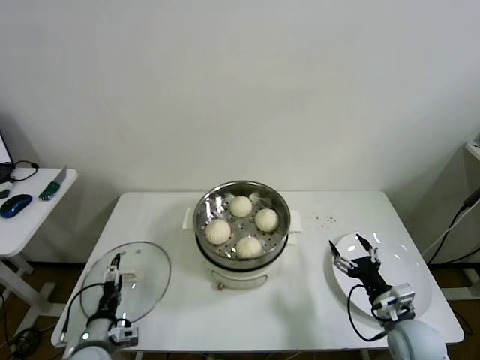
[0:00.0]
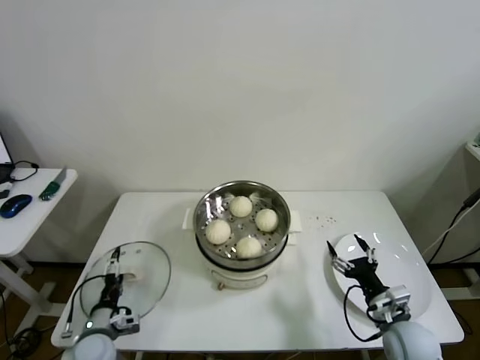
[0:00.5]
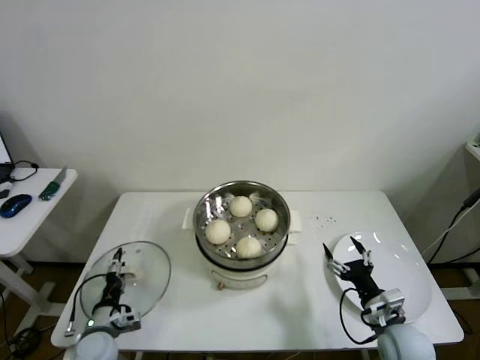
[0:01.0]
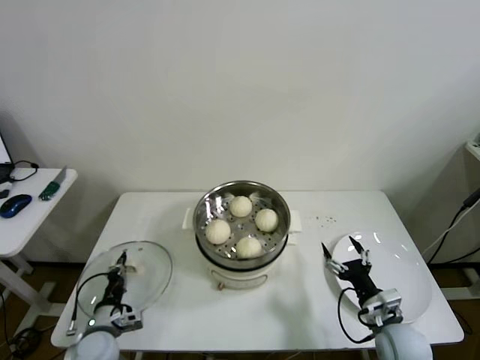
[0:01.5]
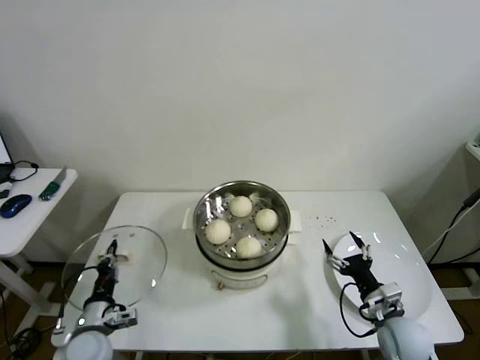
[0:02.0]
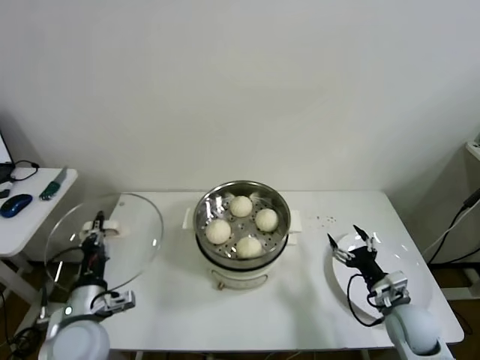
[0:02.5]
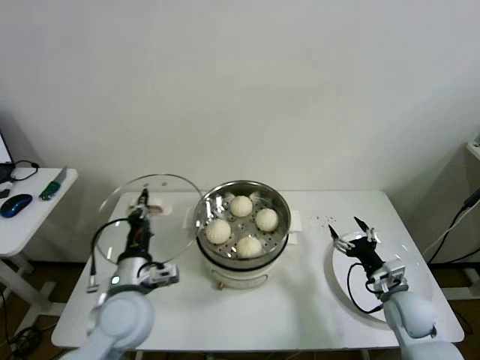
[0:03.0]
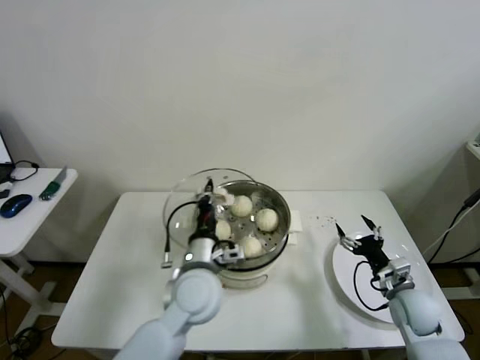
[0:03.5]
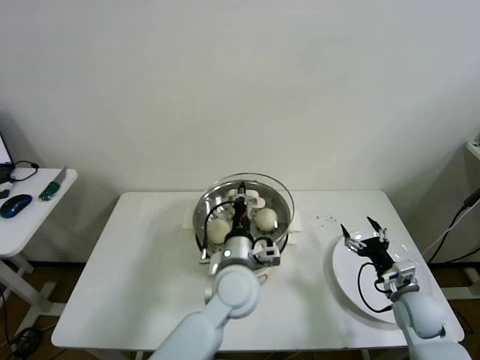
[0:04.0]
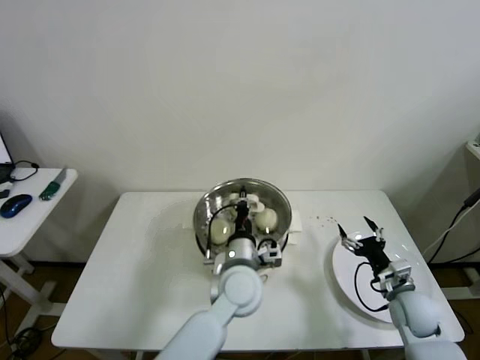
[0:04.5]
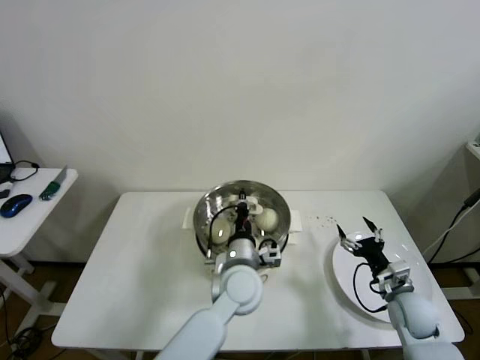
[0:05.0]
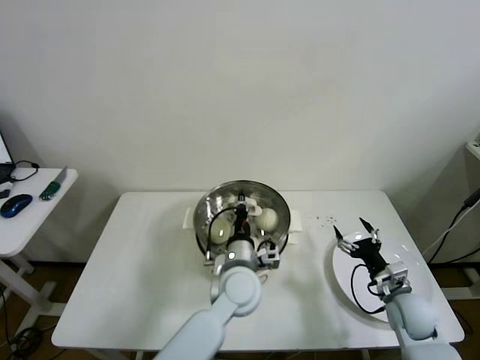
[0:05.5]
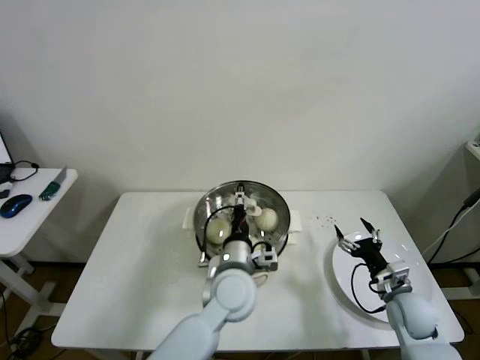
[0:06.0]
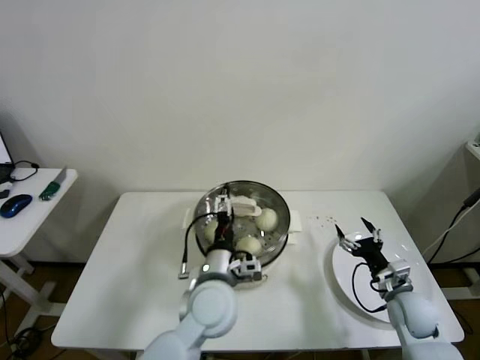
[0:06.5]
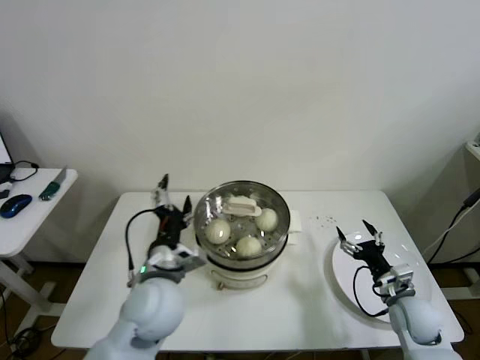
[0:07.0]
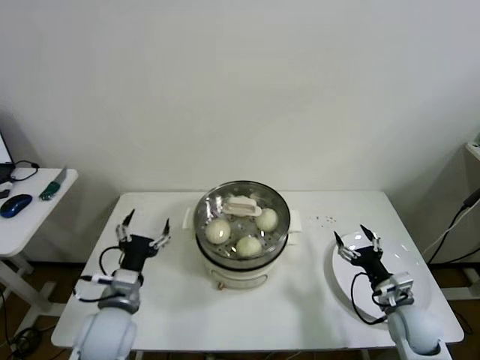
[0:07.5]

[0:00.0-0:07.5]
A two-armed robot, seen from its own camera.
Step, 2.0 to 6.0 s: Place the pot lid on the steamer with left gripper.
0.0 to 2.0 s: The left gripper closes its fingers.
2.0 to 4.0 s: The right gripper is displaced to the right and forward by about 10 cm. The left gripper travels to the right and upward by about 35 cm.
4.0 to 5.5 s: The grippers stay close to where they were, moving slightly.
5.5 to 7.5 s: The left gripper travels to the left by roughly 25 cm, and opens its fingers.

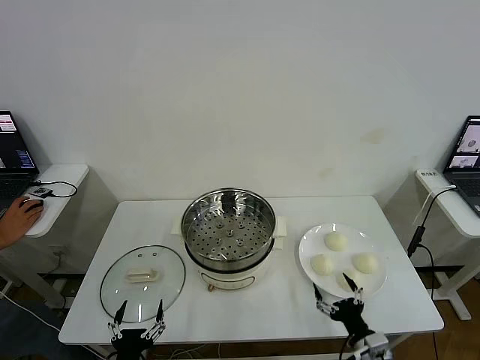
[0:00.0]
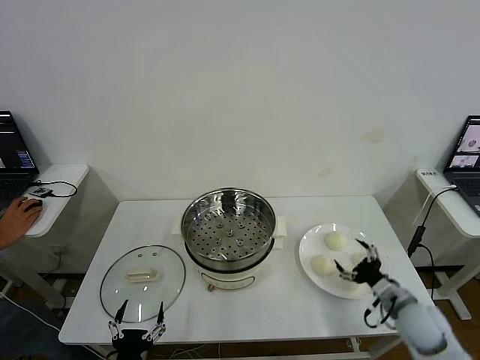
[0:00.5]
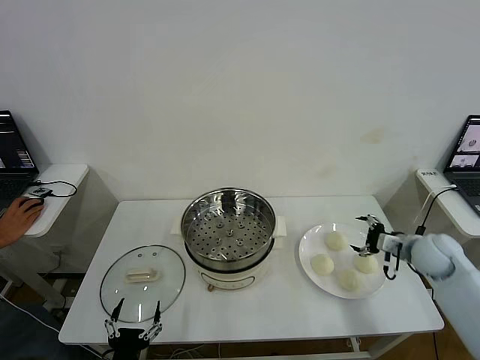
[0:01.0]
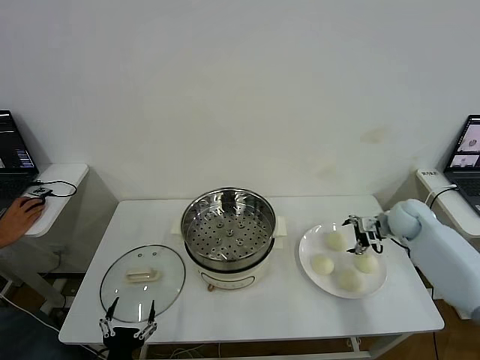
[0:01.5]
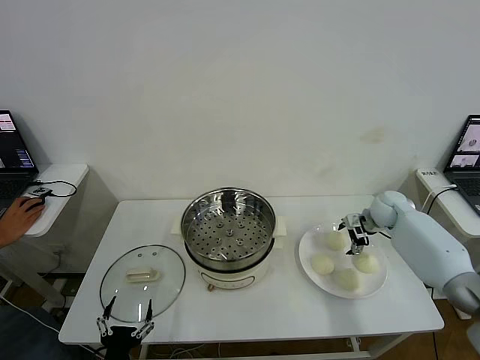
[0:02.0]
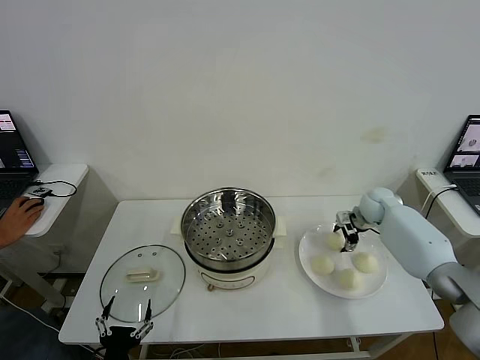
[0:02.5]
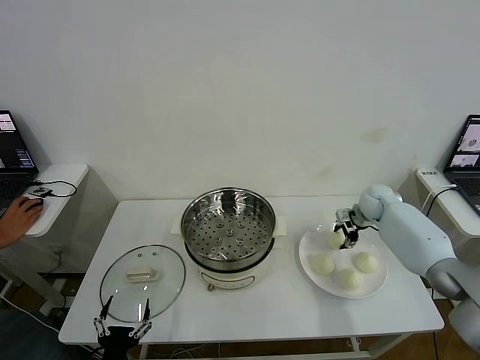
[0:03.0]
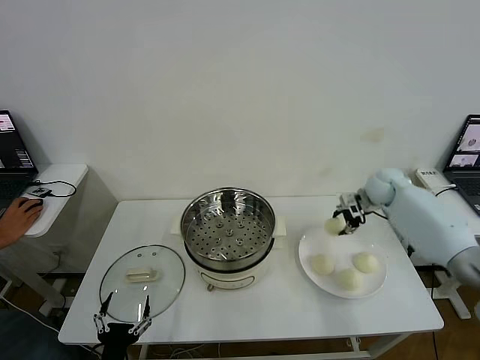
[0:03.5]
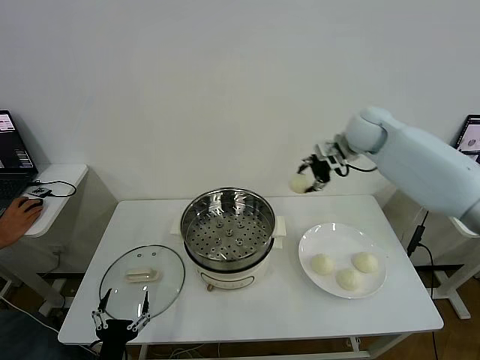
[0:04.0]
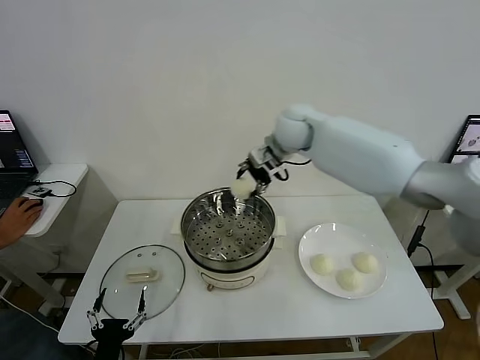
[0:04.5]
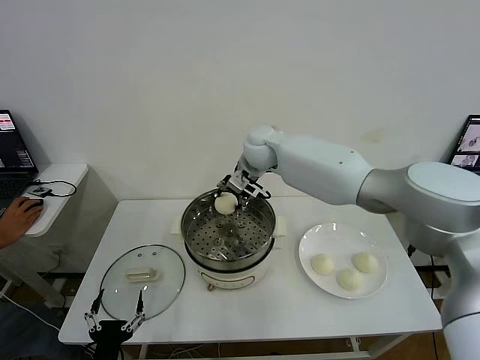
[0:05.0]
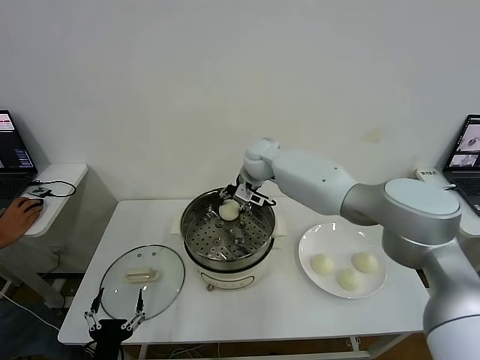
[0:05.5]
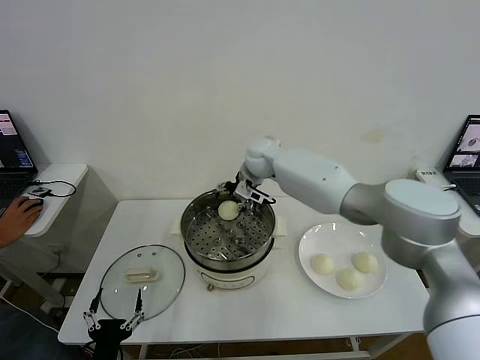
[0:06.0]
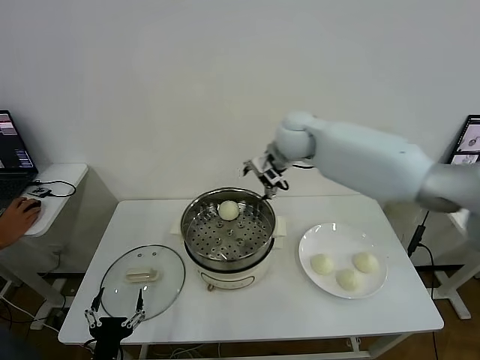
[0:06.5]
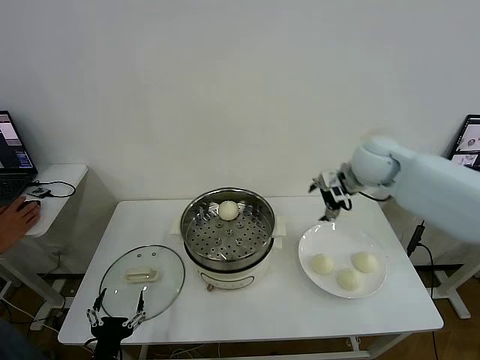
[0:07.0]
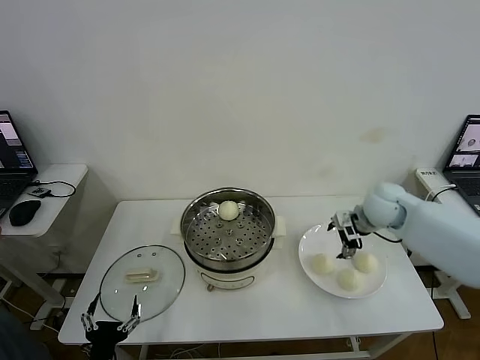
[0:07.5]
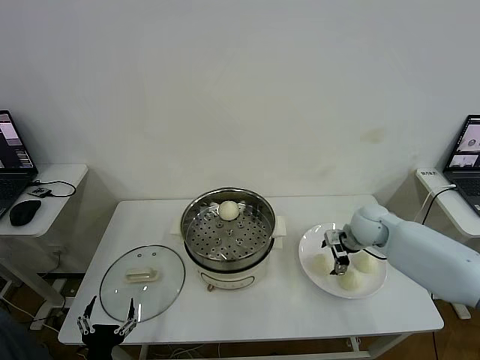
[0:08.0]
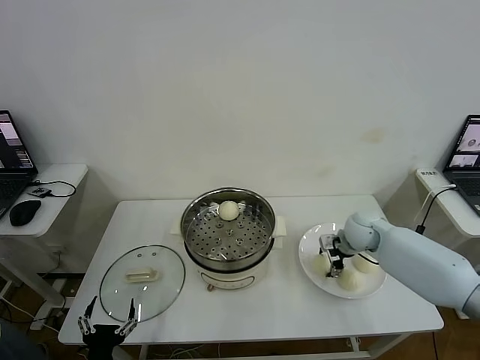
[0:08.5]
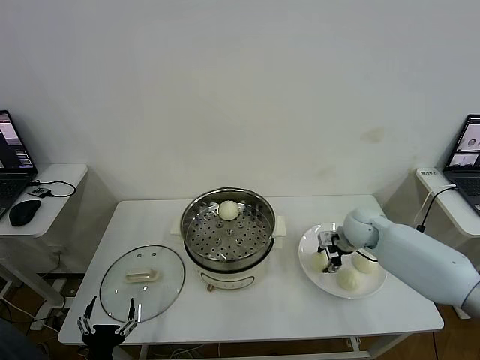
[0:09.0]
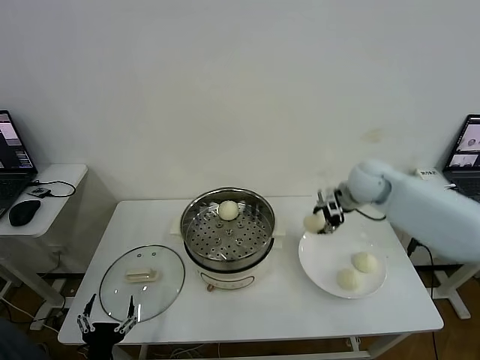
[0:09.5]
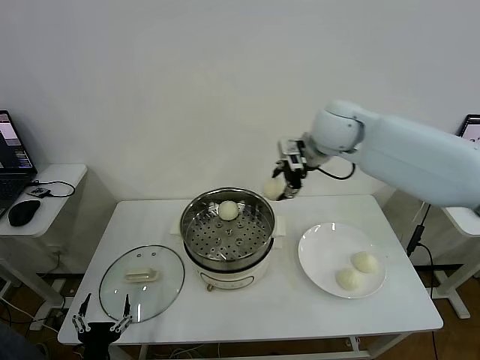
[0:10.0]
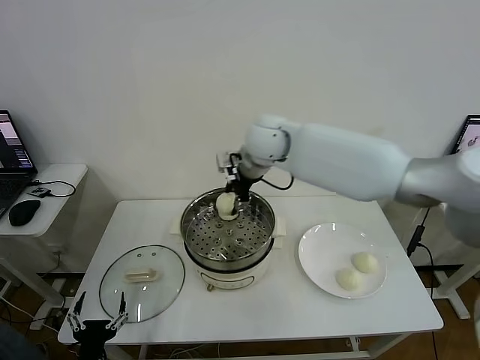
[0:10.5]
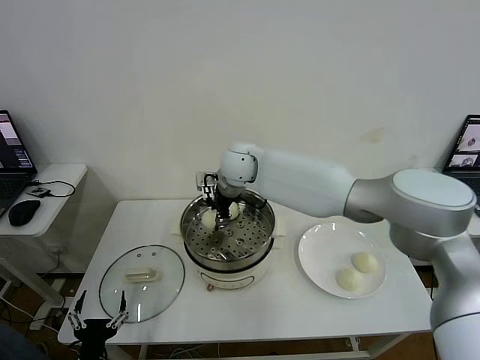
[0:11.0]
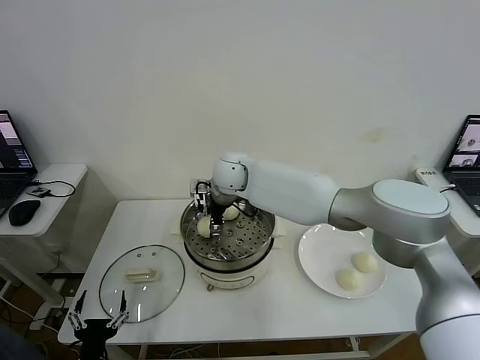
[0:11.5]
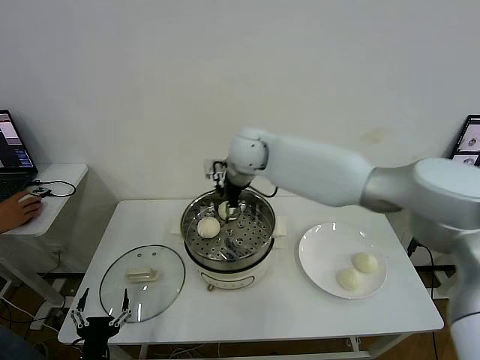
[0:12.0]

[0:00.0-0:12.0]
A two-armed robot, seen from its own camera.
Step, 0.0 to 2.5 s: Grasp the baozi in the plate with right gripper.
Step, 3.0 to 5.5 s: Place the baozi on the steamer with right gripper.
Step, 6.0 to 8.5 s: Grasp the baozi in the plate with right gripper.
Step, 9.0 to 11.5 s: Place the baozi on the steamer with right gripper.
2.0 to 4.0 s: The right gripper travels upward and to the left by approximately 30 cm, and closes.
4.0 to 6.0 s: The right gripper is displaced to the left and downward by about 20 cm, and opens its fingers.
6.0 to 8.0 s: The right gripper heads to the right, downward and backward, covering approximately 30 cm.
8.0 to 10.0 s: The right gripper shifts about 30 cm upward and to the left, and closes up.
10.0 to 12.0 s: The right gripper goes roughly 15 cm to the left and downward, and opens its fingers.

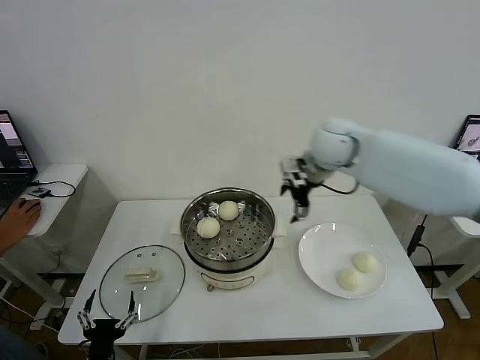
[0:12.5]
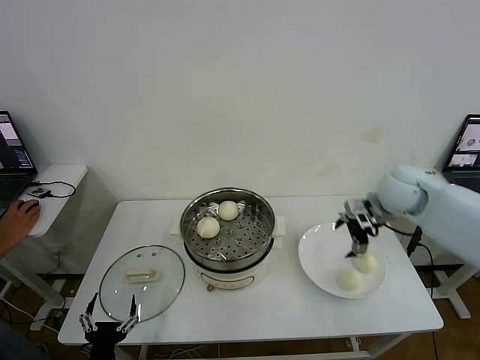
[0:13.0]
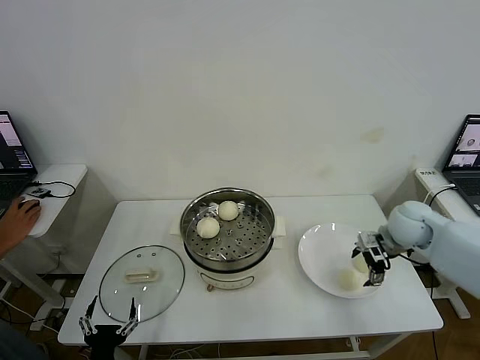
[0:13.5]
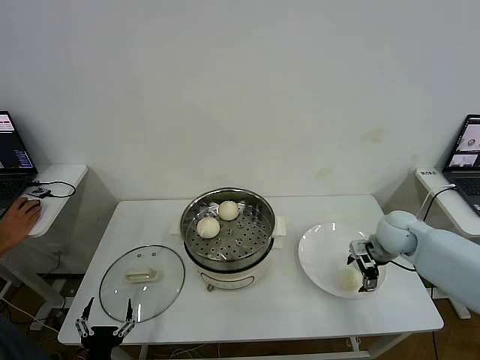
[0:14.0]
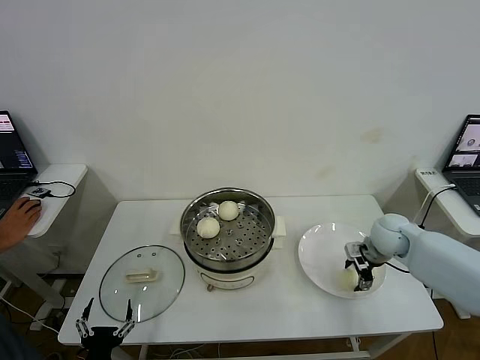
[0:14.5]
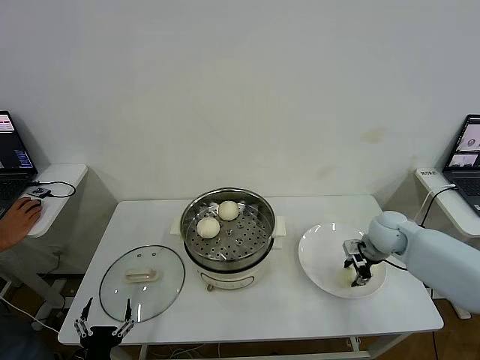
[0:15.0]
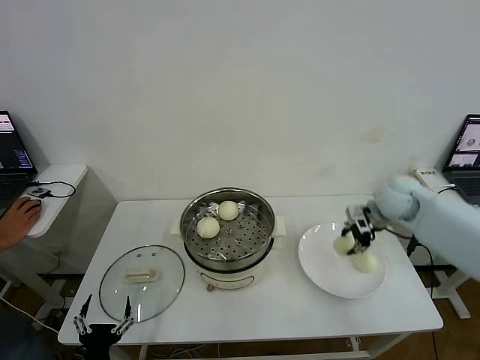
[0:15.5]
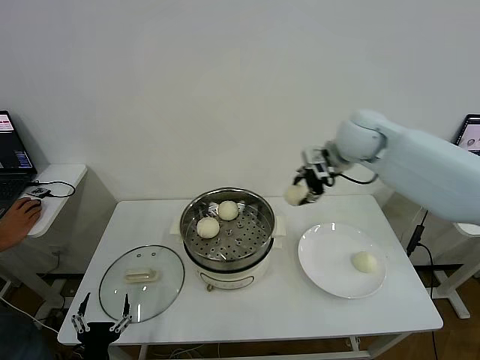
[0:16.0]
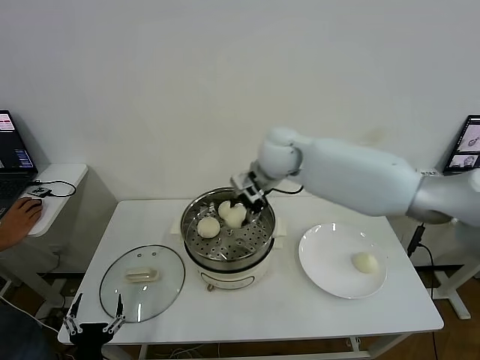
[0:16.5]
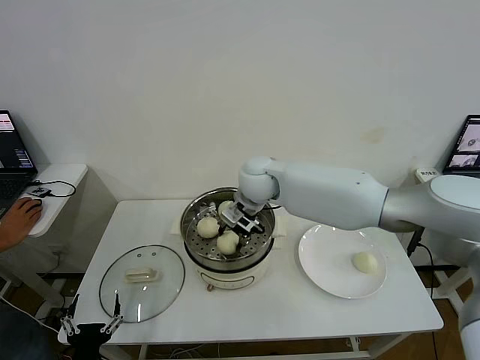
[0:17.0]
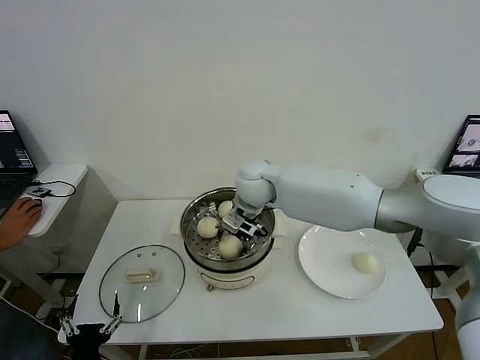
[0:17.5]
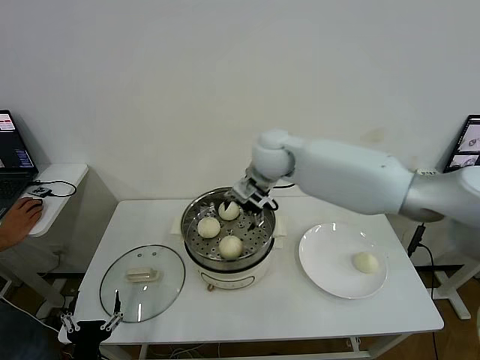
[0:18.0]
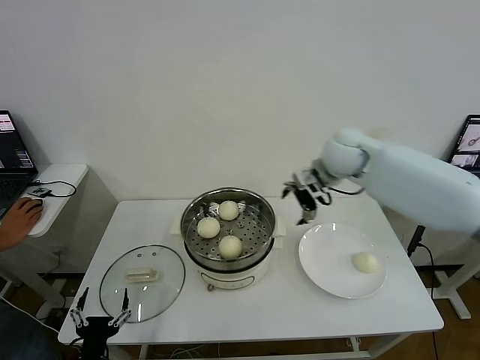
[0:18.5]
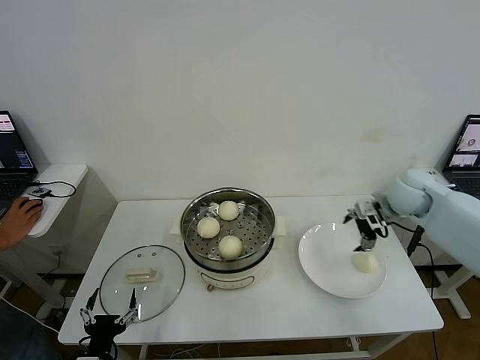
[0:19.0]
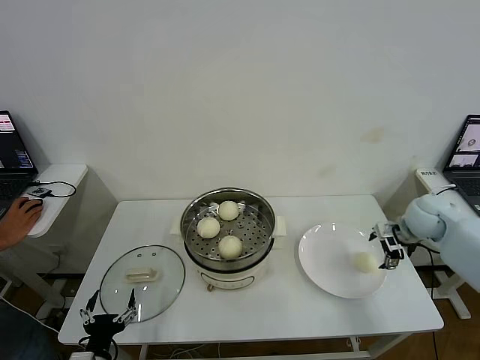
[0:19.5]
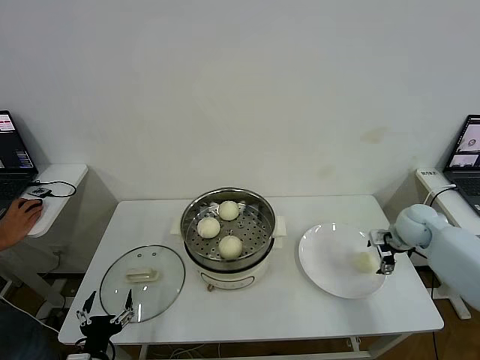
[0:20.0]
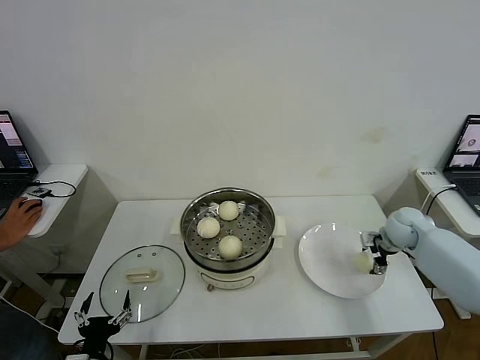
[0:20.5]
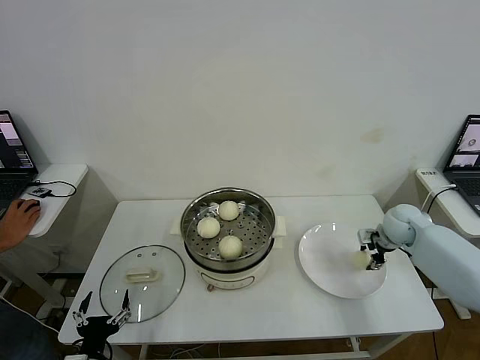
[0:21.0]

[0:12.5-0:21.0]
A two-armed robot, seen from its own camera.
Step, 12.5 to 14.5 s: Grasp the baozi in the plate with right gripper.
Step, 15.0 to 17.5 s: Place the baozi on the steamer with right gripper.
Step, 18.0 to 21.0 s: Grasp the baozi in the plate with right gripper.
12.5 to 14.5 s: The right gripper moves downward and to the right, approximately 25 cm, and closes.
14.5 to 16.5 s: The right gripper travels to the left and upward by about 35 cm, and closes.
16.5 to 19.0 s: The right gripper goes about 30 cm to the right, and opens up.
19.0 to 21.0 s: The right gripper travels downward by roughly 10 cm, and closes.
